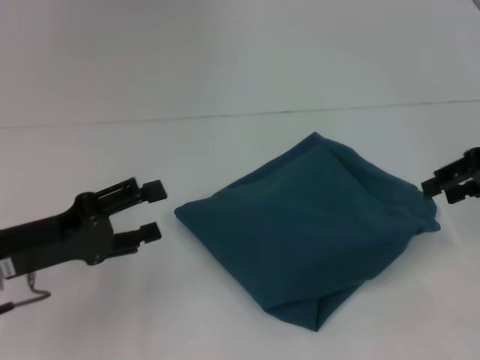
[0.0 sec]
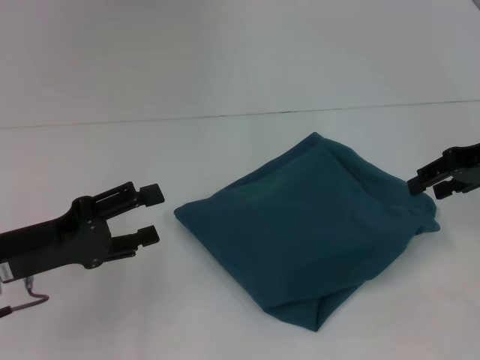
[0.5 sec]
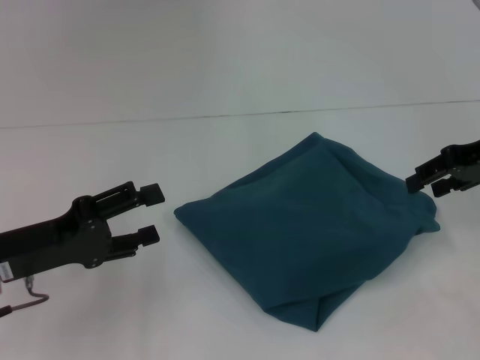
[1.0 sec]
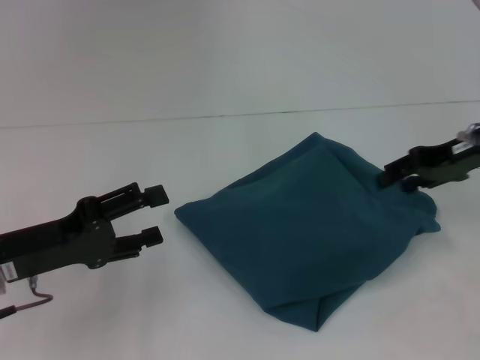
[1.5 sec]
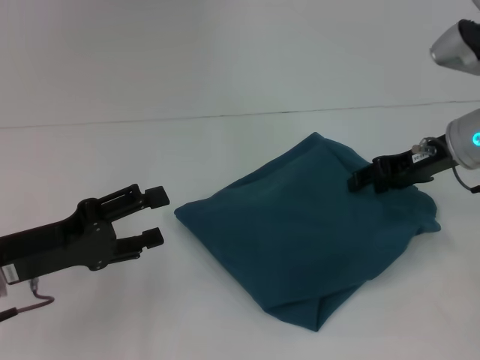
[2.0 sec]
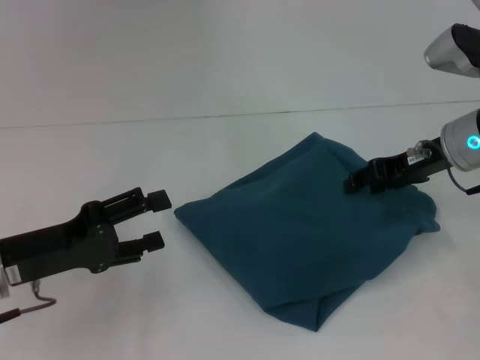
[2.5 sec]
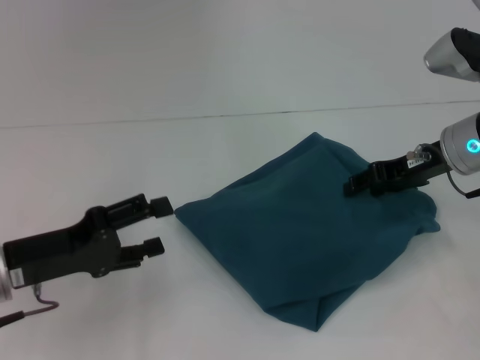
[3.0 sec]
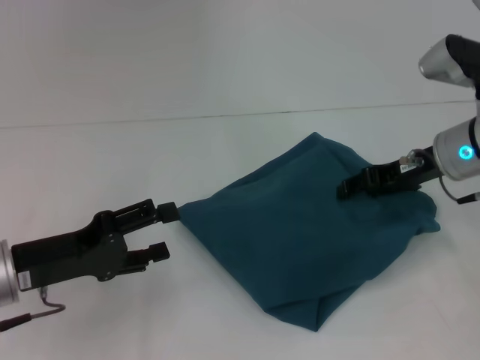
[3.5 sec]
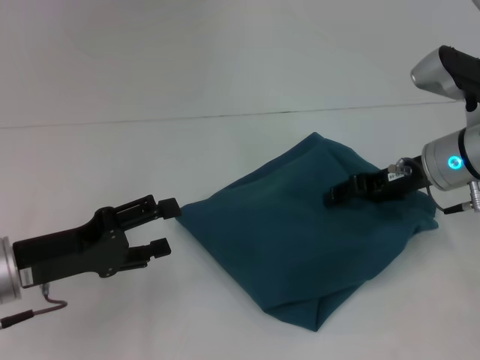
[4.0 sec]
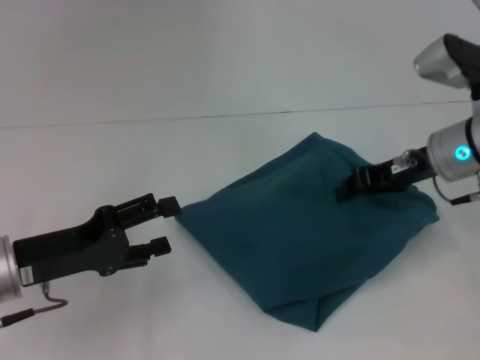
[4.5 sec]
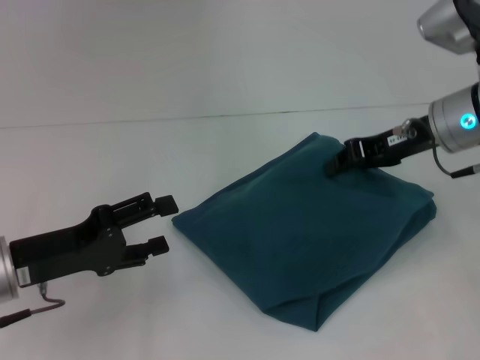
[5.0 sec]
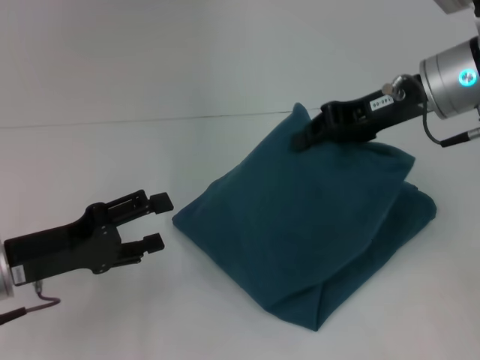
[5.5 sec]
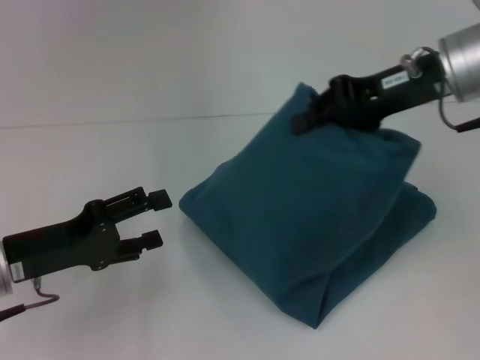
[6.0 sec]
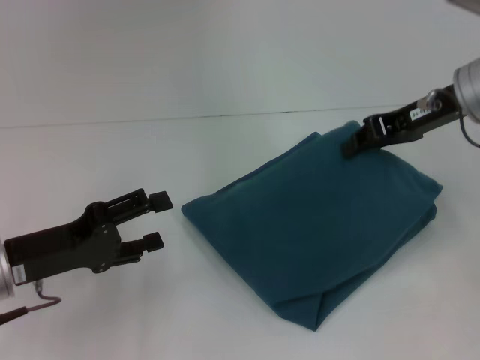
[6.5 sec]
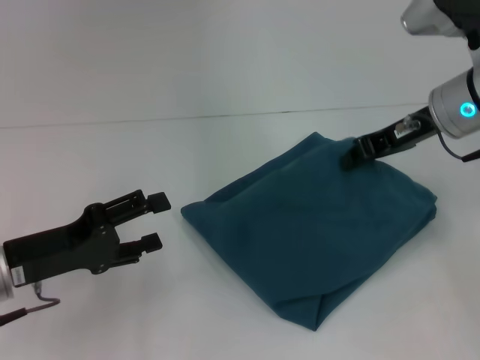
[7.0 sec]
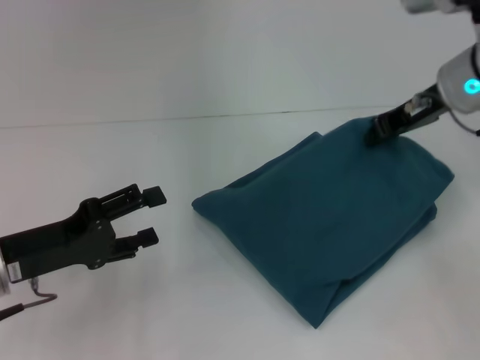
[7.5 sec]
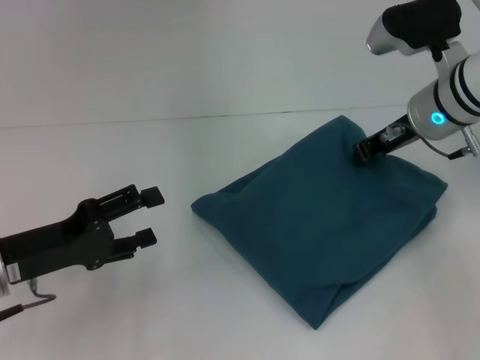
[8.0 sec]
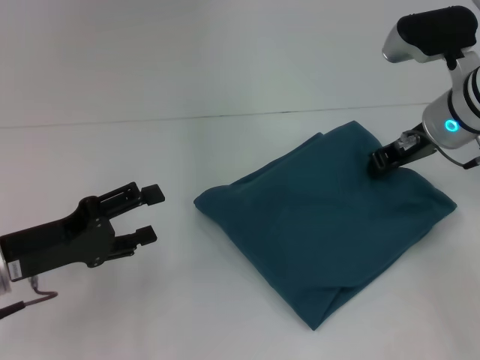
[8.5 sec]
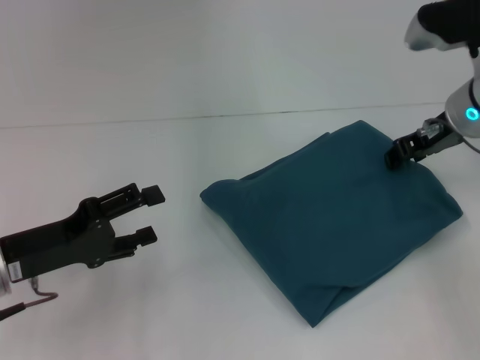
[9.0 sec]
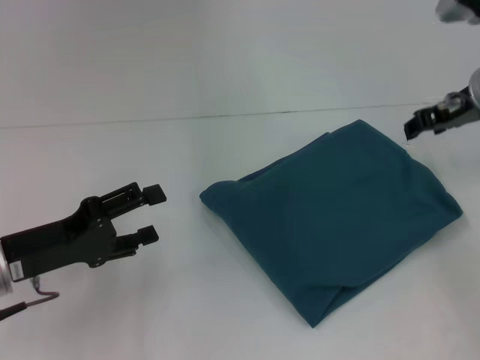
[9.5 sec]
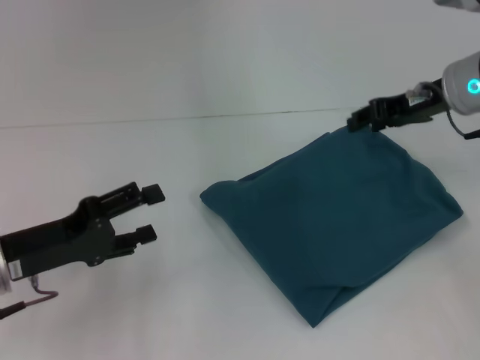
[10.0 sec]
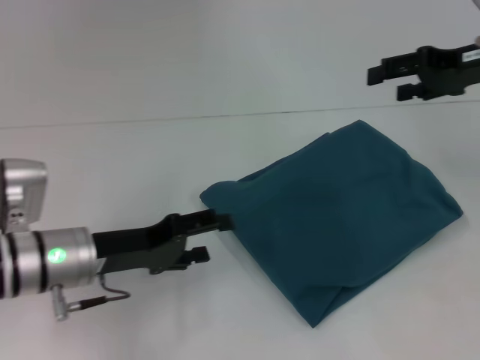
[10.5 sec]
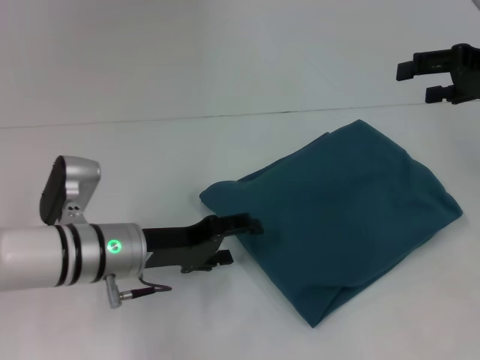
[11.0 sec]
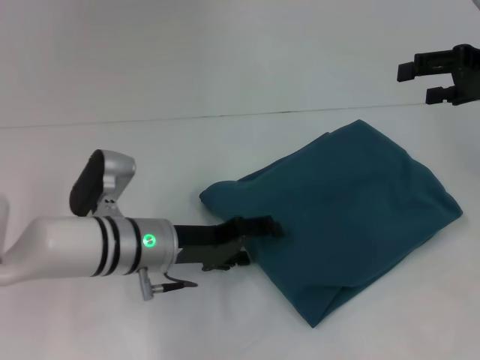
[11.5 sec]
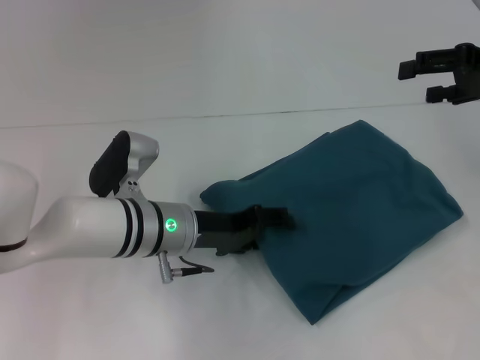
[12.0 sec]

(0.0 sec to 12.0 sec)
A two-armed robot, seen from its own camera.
0.0 sec - 2.0 sec: The right gripper shifts about 10 cm to the left and downward.
2.0 sec - 4.0 sec: There are only small adjustments of the grippers.
4.0 sec - 6.0 sec: The right gripper travels upward by roughly 10 cm, and closes its fingers.
6.0 sec - 8.0 sec: The right gripper is displaced downward by about 5 cm.
8.0 sec - 10.0 sec: The right gripper opens up.
10.0 sec - 12.0 sec: The left gripper goes some 20 cm to the right and forward. The right gripper goes some 10 cm to the right, and opens.

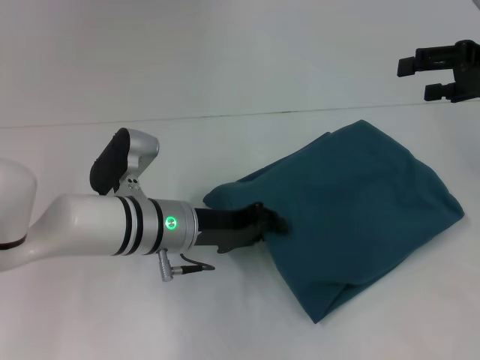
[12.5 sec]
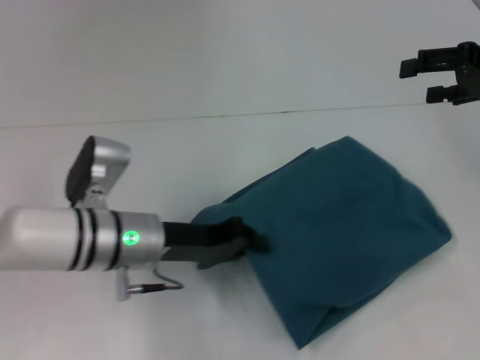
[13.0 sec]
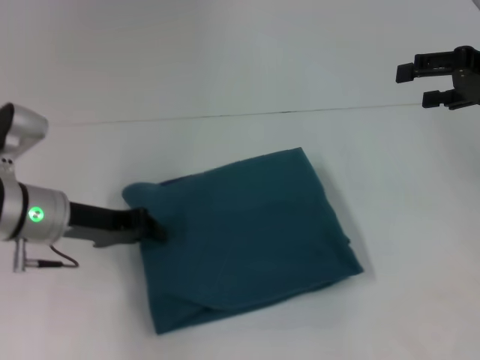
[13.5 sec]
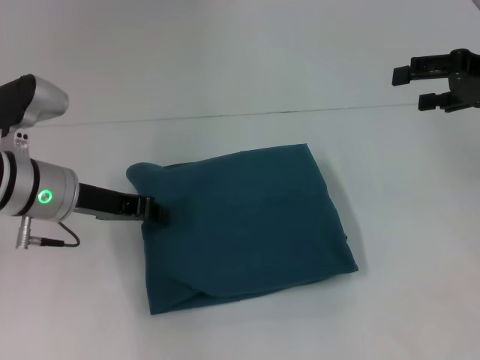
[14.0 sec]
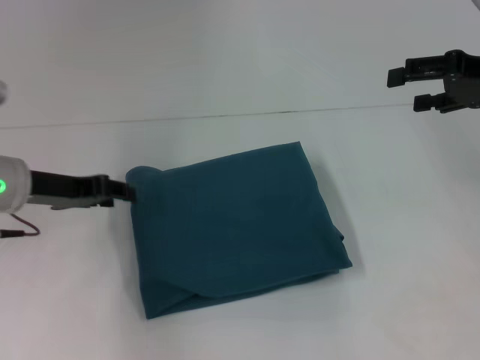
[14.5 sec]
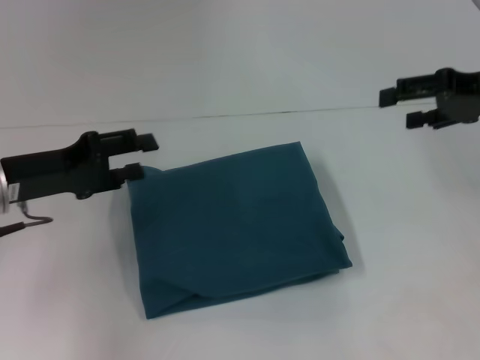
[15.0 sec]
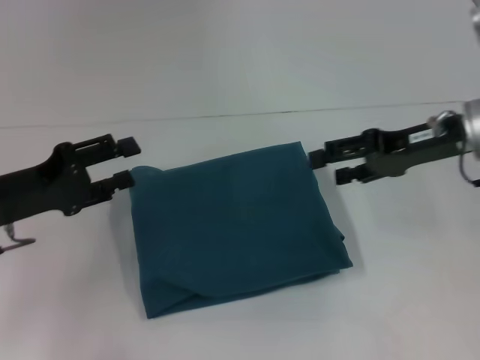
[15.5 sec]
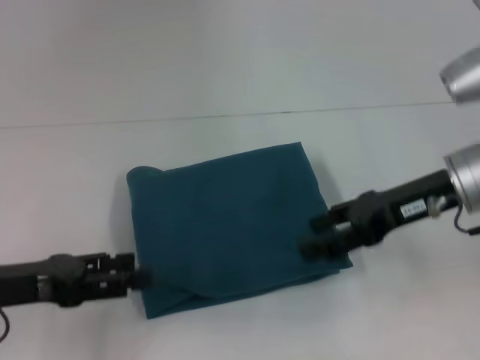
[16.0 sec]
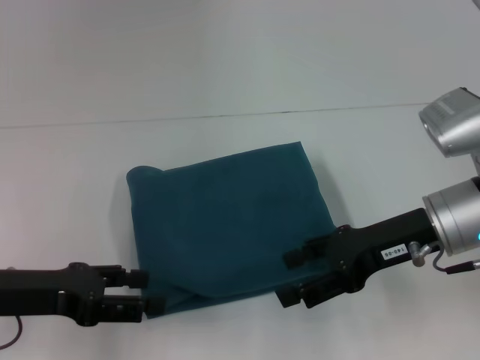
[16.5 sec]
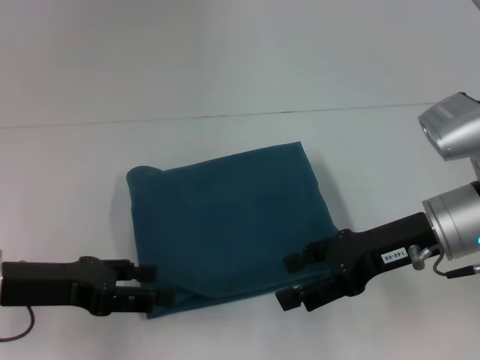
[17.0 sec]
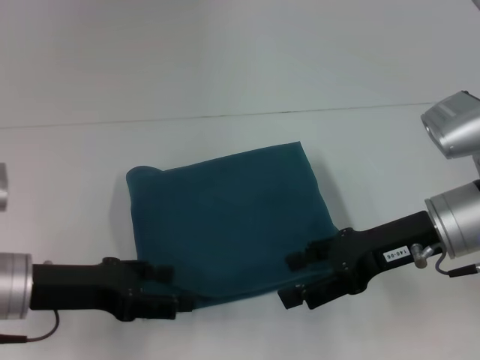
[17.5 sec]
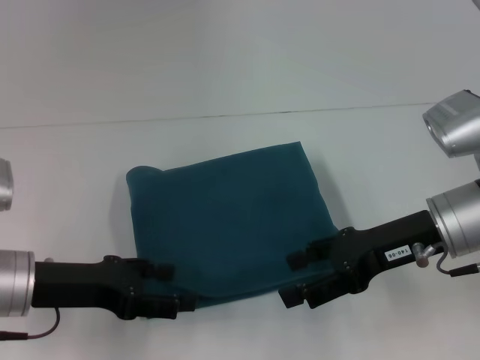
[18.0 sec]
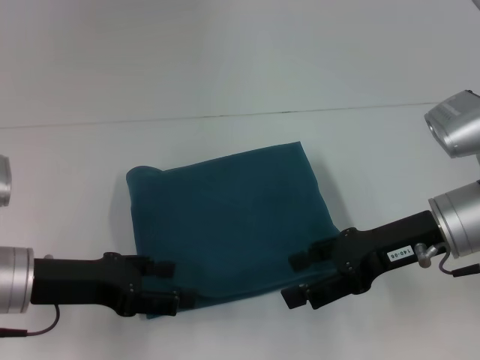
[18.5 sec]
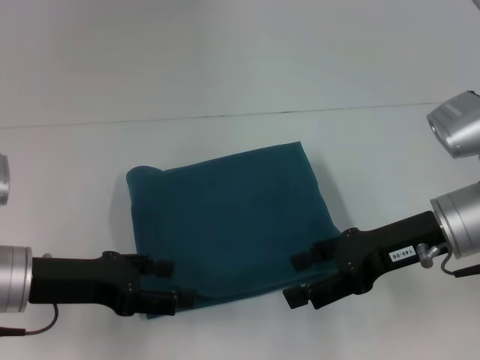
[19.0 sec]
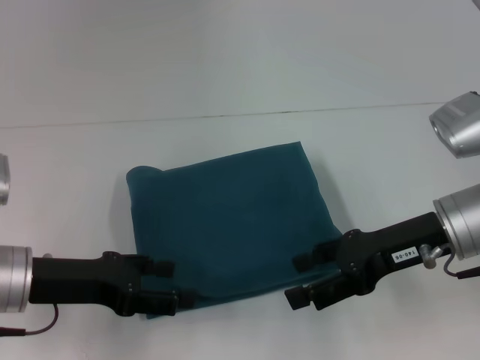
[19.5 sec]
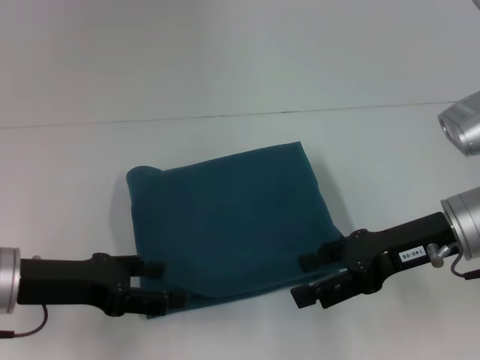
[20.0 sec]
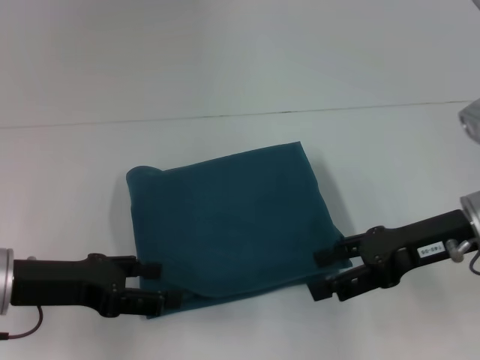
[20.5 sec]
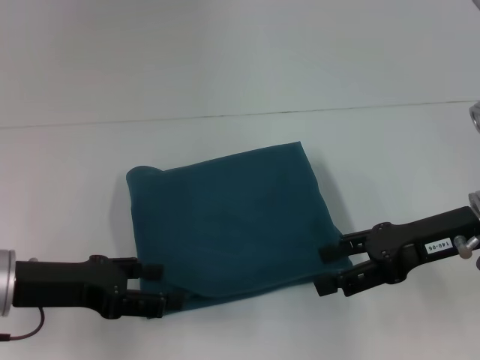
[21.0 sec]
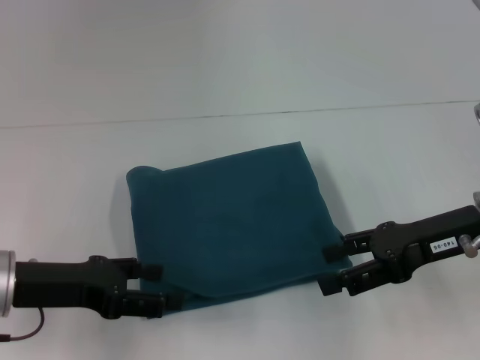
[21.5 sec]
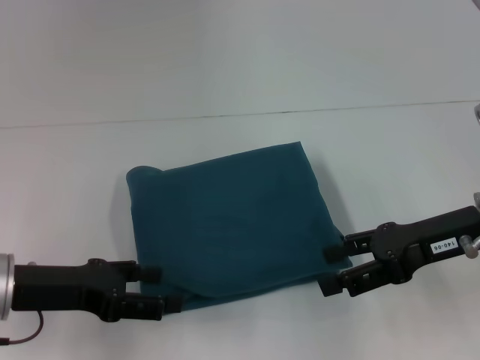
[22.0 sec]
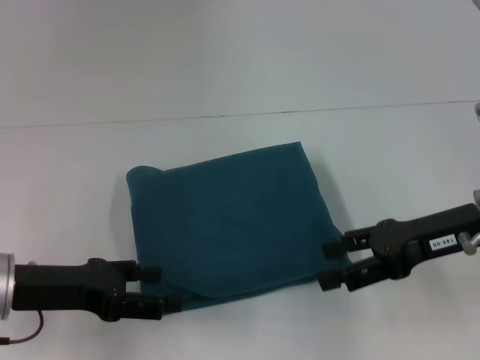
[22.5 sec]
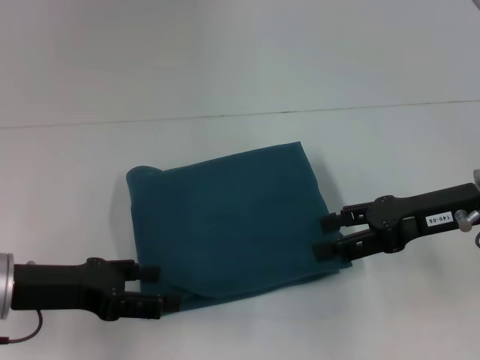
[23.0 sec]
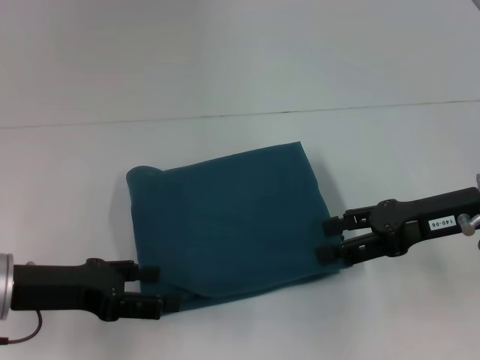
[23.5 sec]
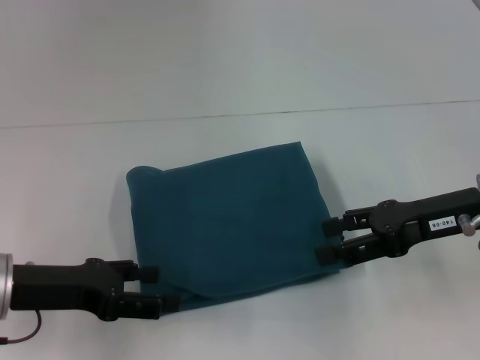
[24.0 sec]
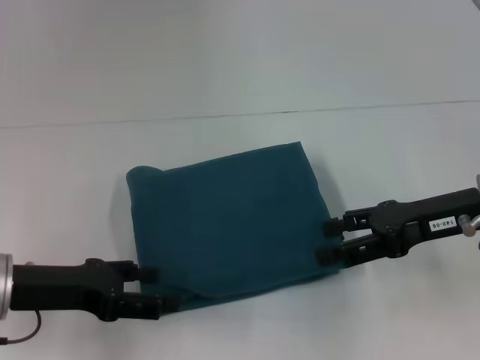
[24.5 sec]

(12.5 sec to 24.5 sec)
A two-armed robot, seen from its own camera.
12.5 sec - 14.5 sec: The left gripper travels to the left and upward by roughly 15 cm.
14.5 sec - 16.5 sec: The left gripper is displaced backward by roughly 10 cm, and opens its fingers; the right gripper heads to the left, downward and backward, covering some 15 cm.
16.5 sec - 20.5 sec: The grippers stay close to where they were, moving slightly.
20.5 sec - 22.5 sec: Neither gripper changes place.
22.5 sec - 24.5 sec: The two grippers keep their place.

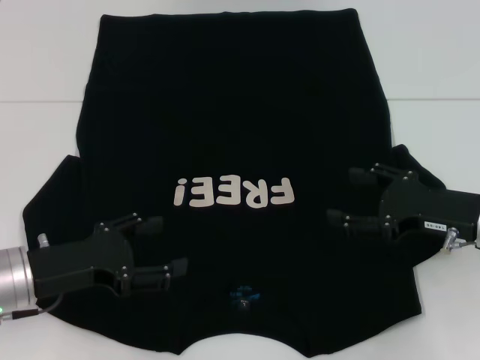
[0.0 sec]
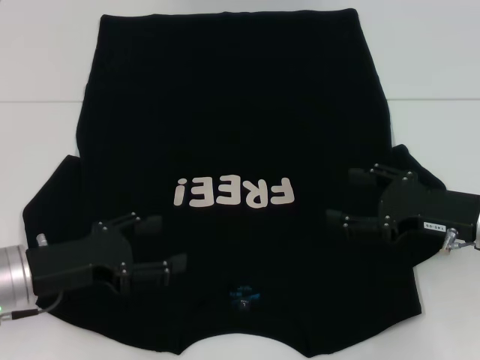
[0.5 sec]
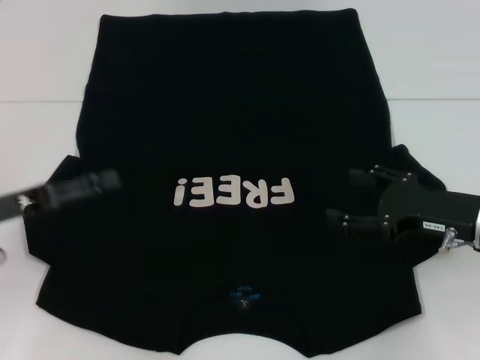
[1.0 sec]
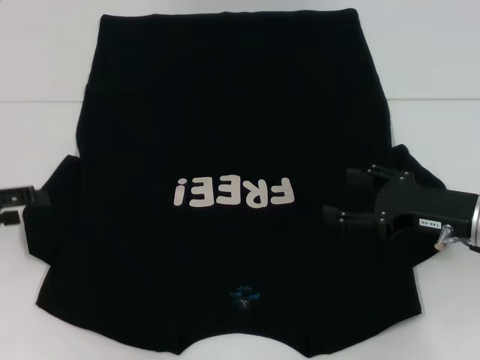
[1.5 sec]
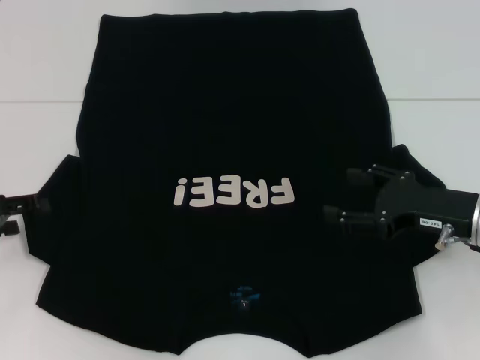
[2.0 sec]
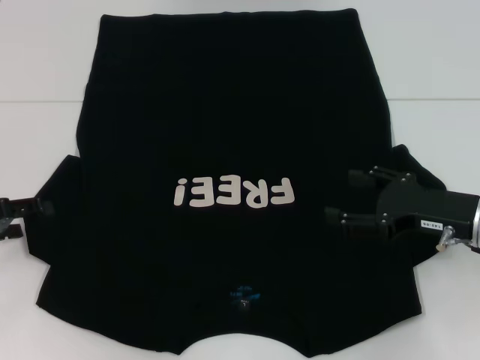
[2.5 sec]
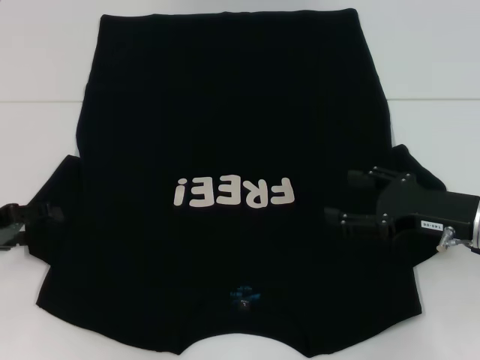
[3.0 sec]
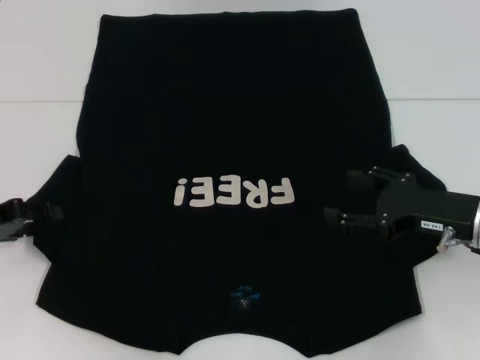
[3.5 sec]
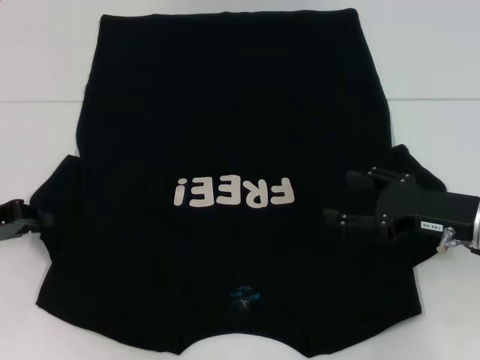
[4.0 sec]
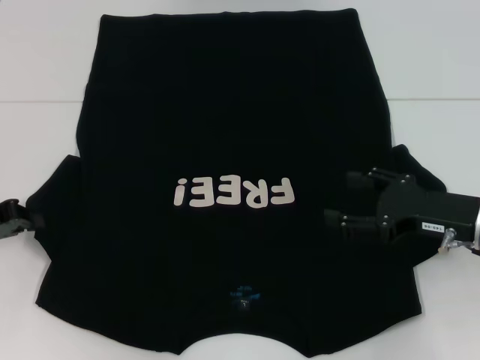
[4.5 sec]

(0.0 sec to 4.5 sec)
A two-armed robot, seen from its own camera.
0.0 sec - 2.0 sec: The left gripper travels to the left by some 10 cm.
2.0 sec - 4.5 sec: The left gripper closes up.
